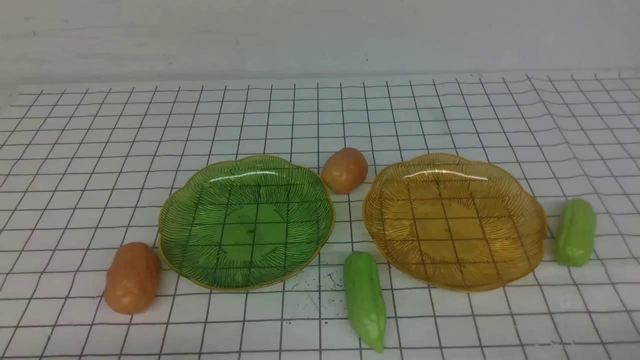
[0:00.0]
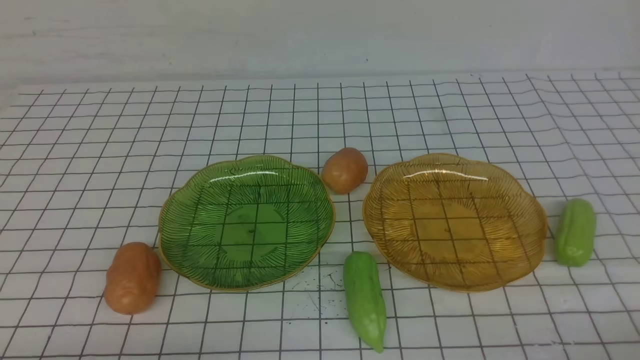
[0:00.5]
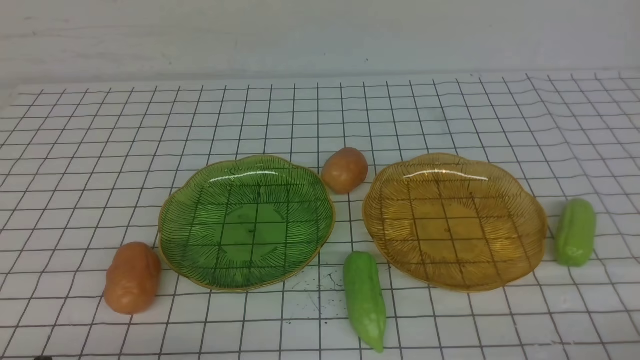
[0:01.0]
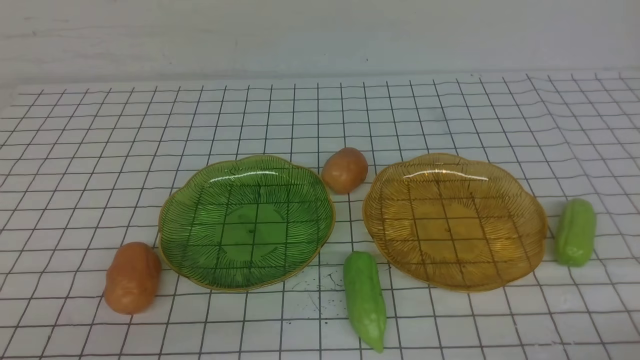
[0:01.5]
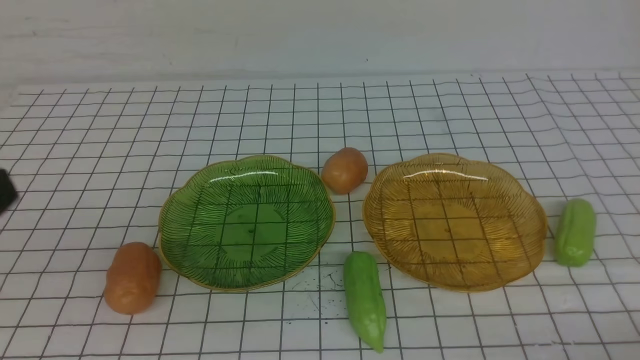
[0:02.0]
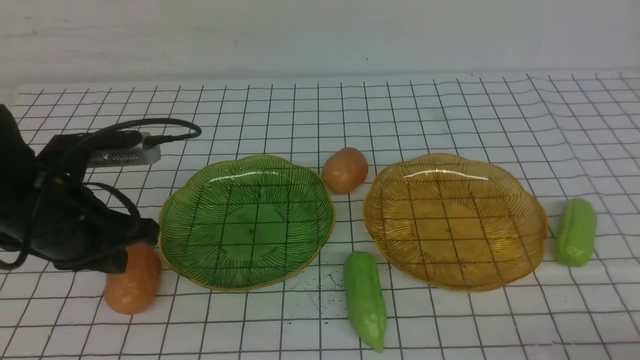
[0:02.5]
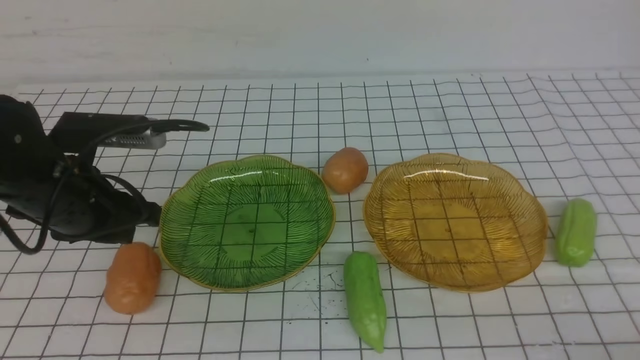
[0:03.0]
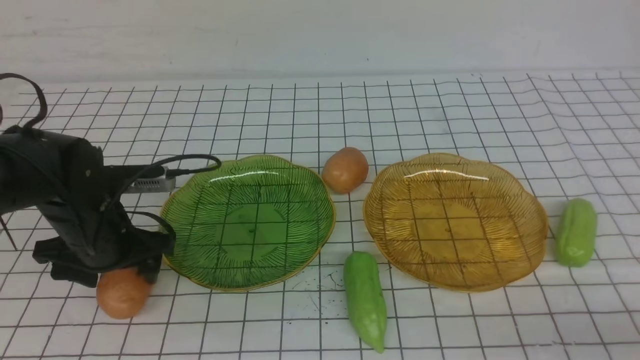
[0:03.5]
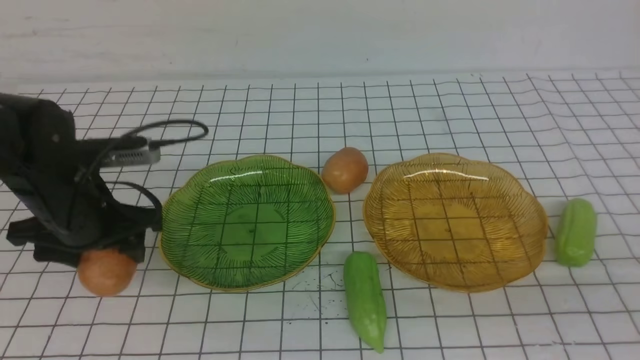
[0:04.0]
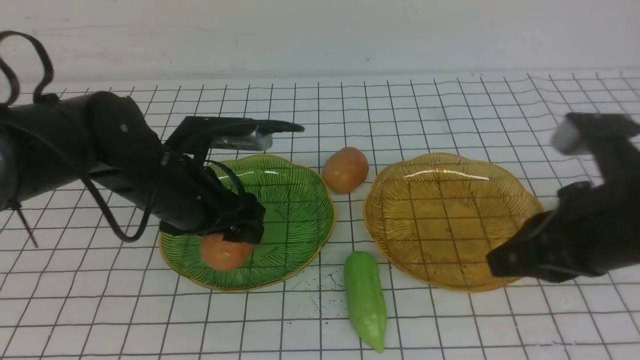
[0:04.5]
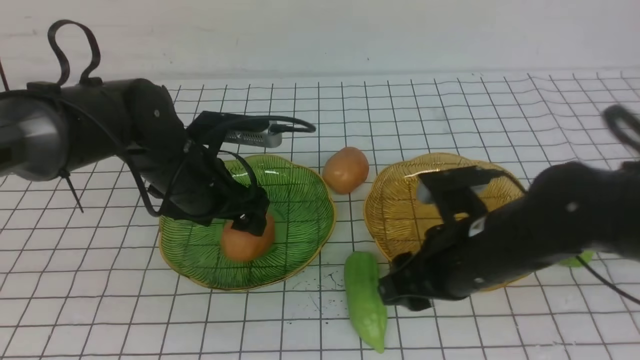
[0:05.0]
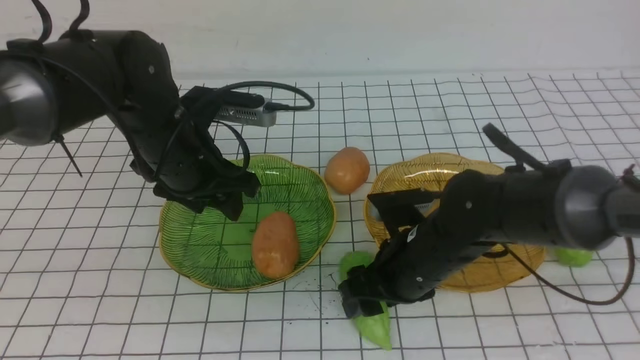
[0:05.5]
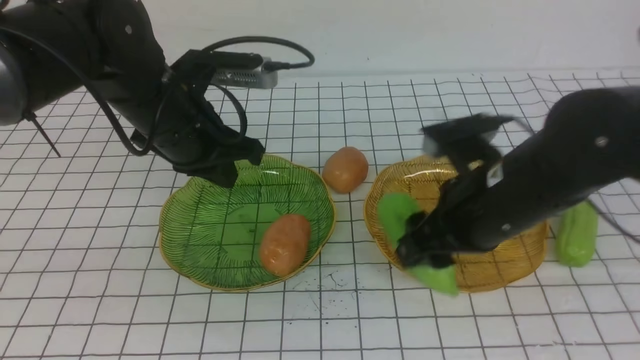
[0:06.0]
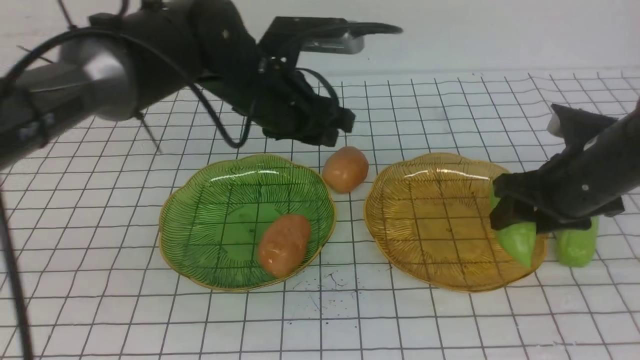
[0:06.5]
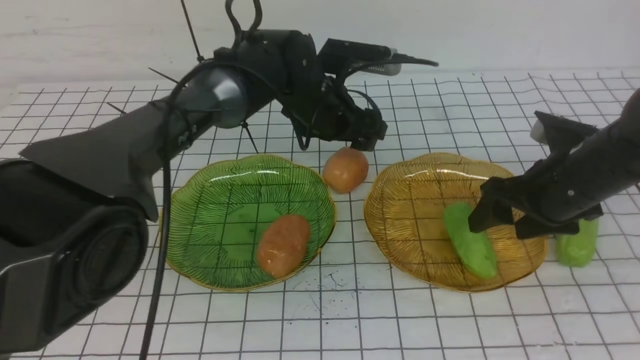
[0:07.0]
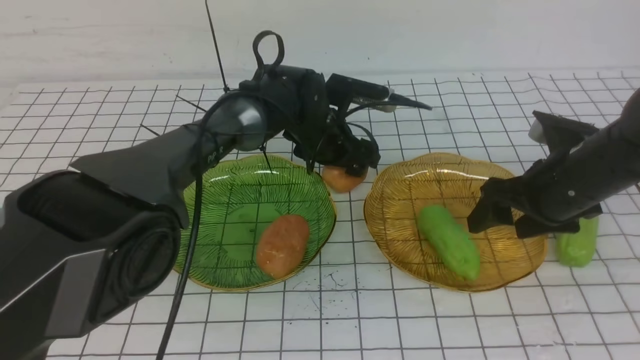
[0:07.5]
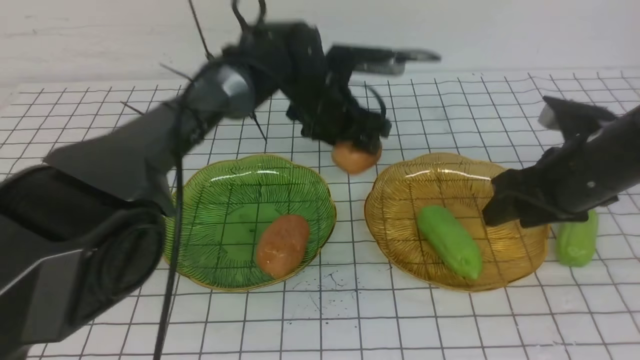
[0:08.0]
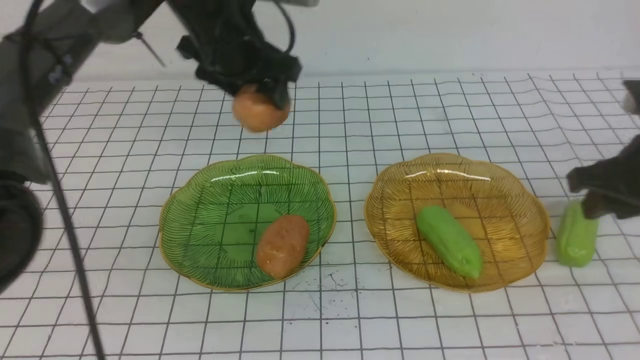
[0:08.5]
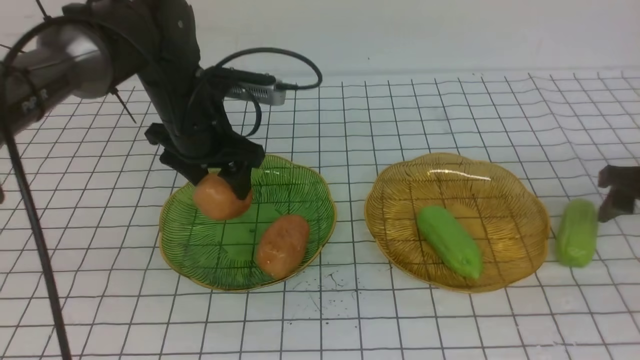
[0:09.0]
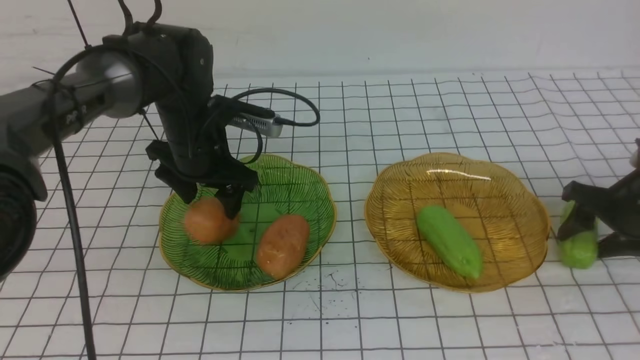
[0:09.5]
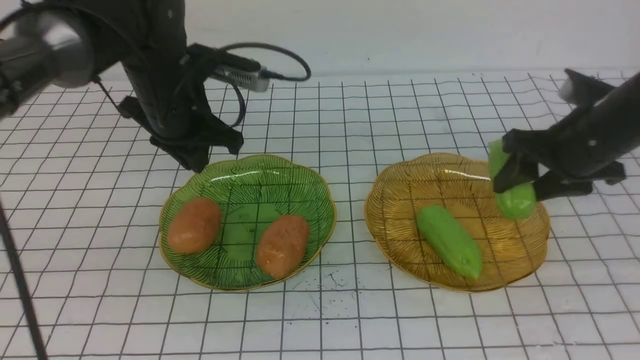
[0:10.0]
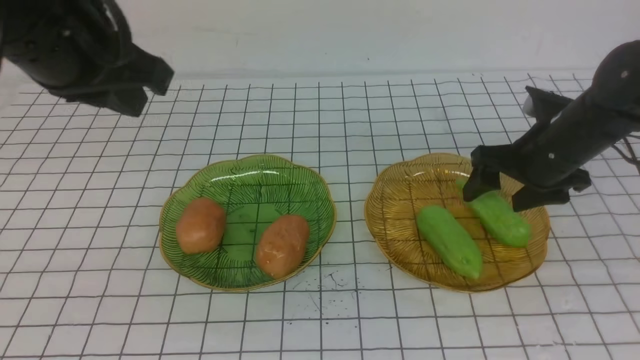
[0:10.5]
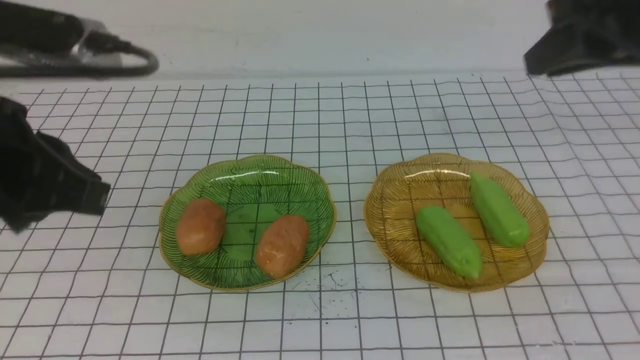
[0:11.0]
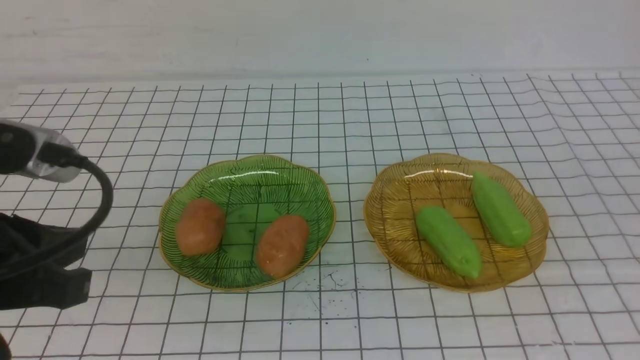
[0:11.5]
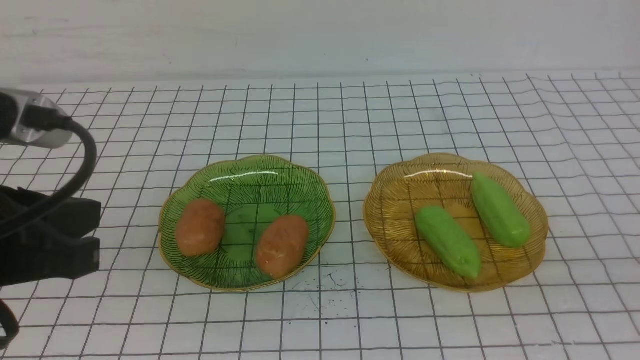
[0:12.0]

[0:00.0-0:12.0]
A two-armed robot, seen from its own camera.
Step, 0:00.0 to 0:05.0: Grab a potato with your left arm and put it on the left plate.
Step, 0:05.5 to 0:06.5: use the right arm to grab a chayote and put it into the right plate.
Step, 0:07.5 to 0:09.5: Grab a potato with your left arm and put it on the left plate.
Step, 0:10.0 to 0:10.5: use the right arm to grab a chayote and put it into the right plate.
0:02.0 to 0:04.0: The right gripper goes approximately 15 cm upward and forward; the left gripper heads forward and downward, covering some 15 cm, and opens its fingers.
0:04.0 to 0:06.0: The left gripper is displaced to the right and forward by roughly 10 cm, and closes up. The right gripper moves forward, to the left and downward, approximately 20 cm, and opens.
0:06.0 to 0:08.0: The right gripper shifts approximately 10 cm to the right, while the left gripper travels to the right and forward by roughly 15 cm, and opens.
0:08.0 to 0:10.0: The right gripper travels forward by roughly 5 cm, and moves approximately 10 cm to the right and comes back, while the left gripper moves to the left and backward, roughly 15 cm, and closes.
0:10.0 to 0:12.0: Both grippers travel together backward, some 30 cm. The right gripper closes.

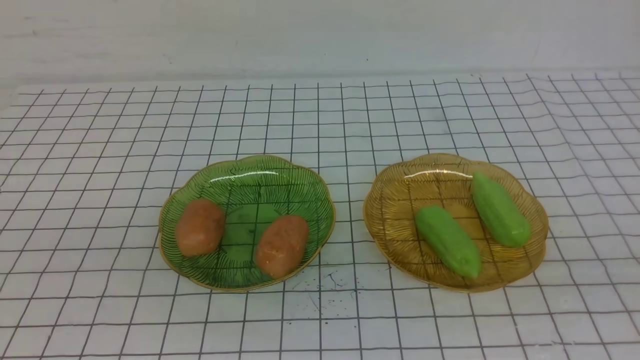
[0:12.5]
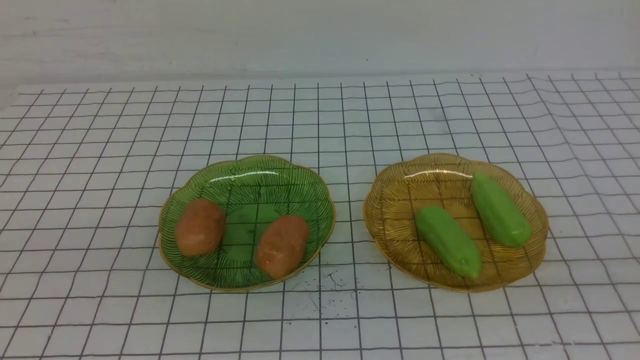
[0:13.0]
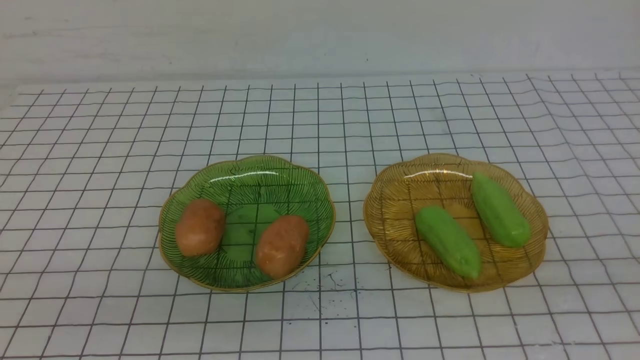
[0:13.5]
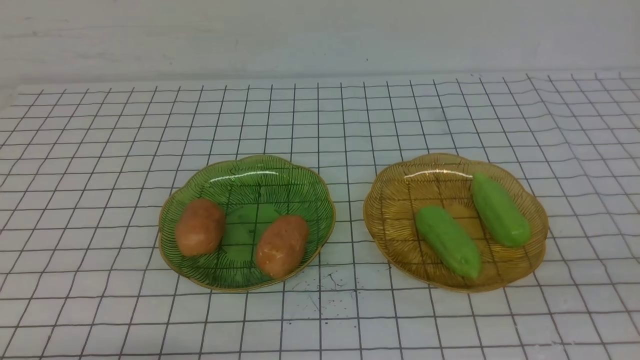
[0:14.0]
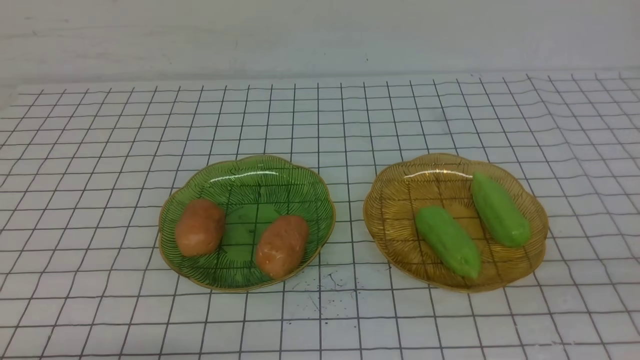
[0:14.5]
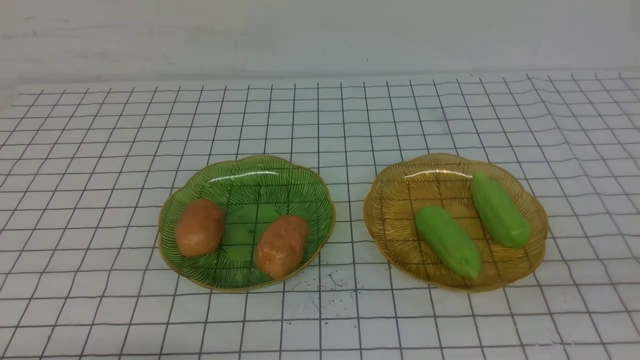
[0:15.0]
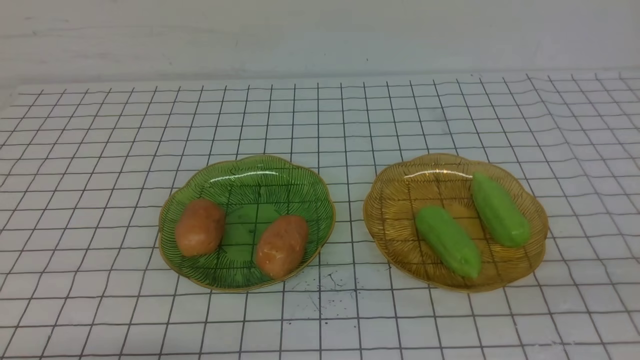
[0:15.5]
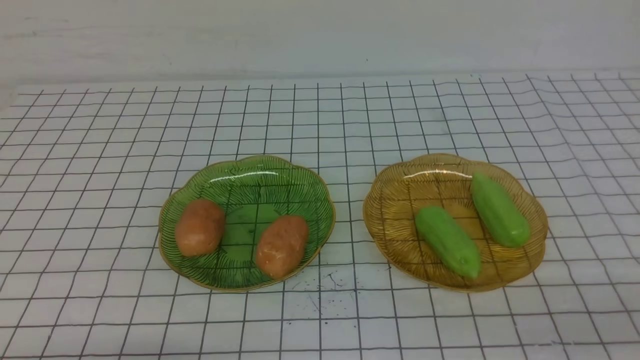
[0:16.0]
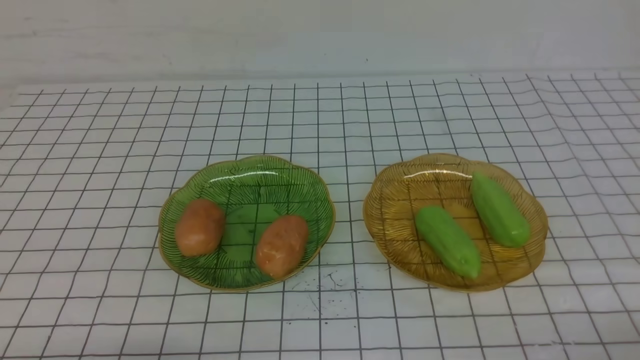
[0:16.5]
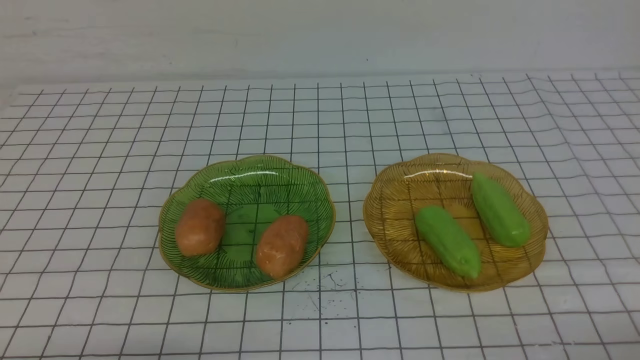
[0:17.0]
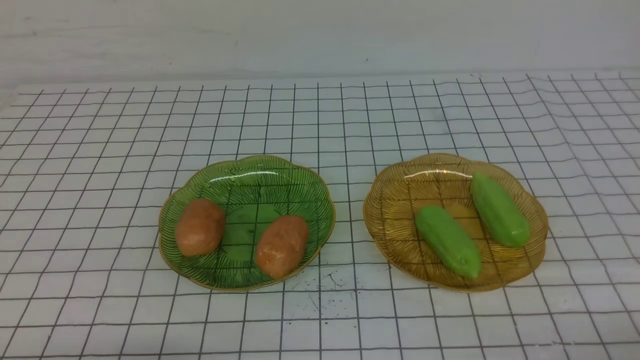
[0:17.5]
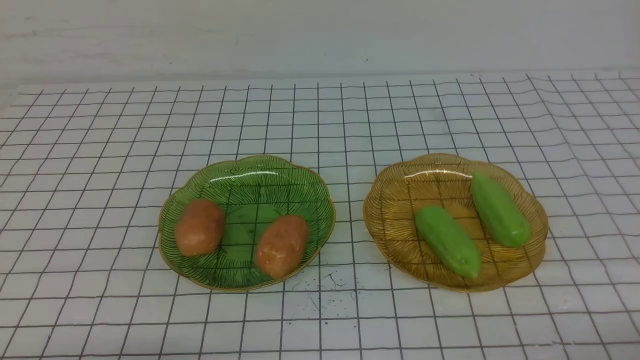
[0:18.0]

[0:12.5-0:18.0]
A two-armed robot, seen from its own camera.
0:12.5 to 0:14.5: The left gripper goes about 20 cm downward.
